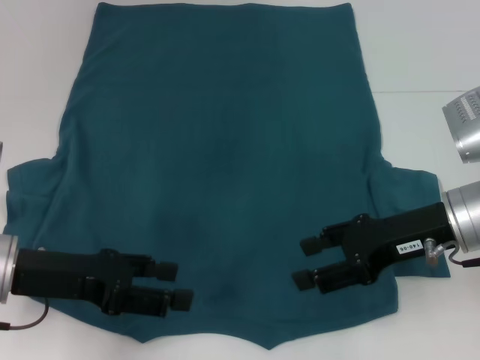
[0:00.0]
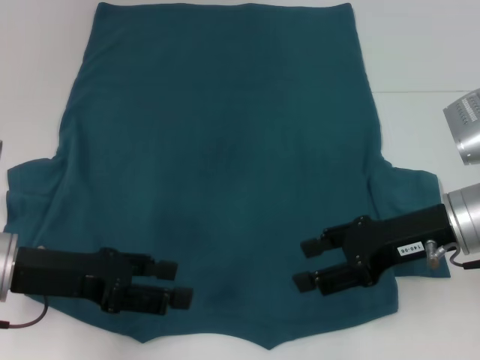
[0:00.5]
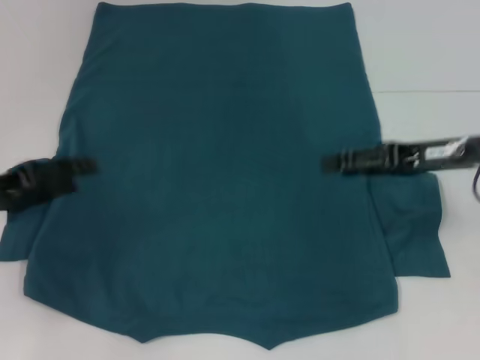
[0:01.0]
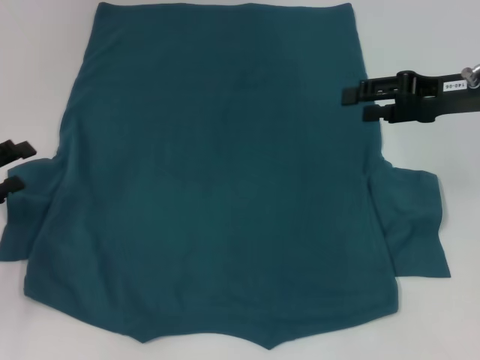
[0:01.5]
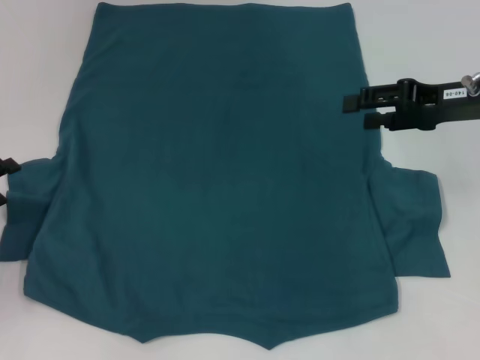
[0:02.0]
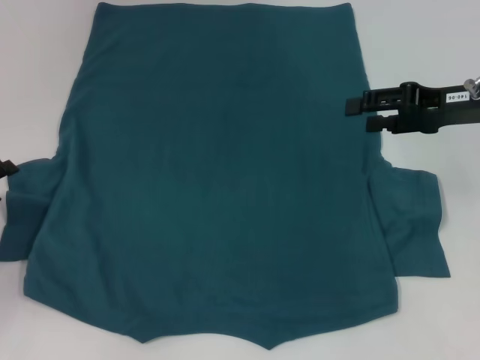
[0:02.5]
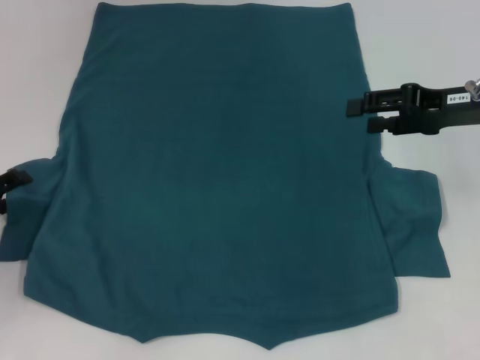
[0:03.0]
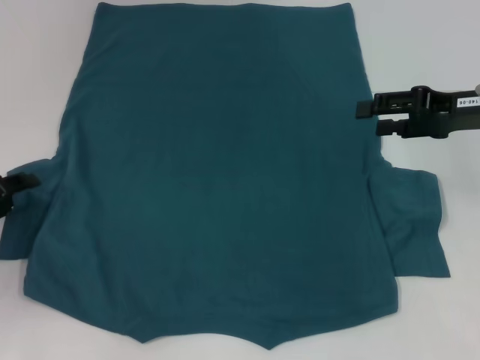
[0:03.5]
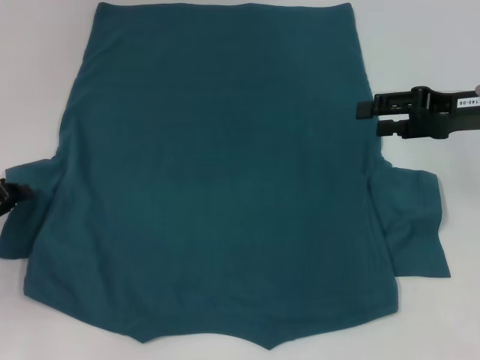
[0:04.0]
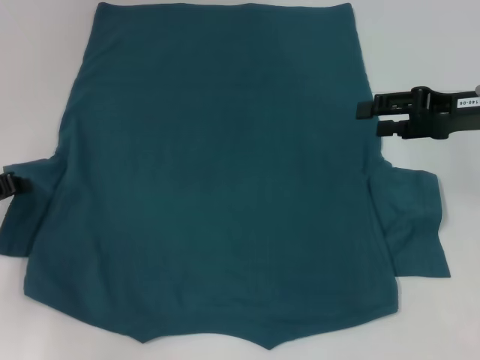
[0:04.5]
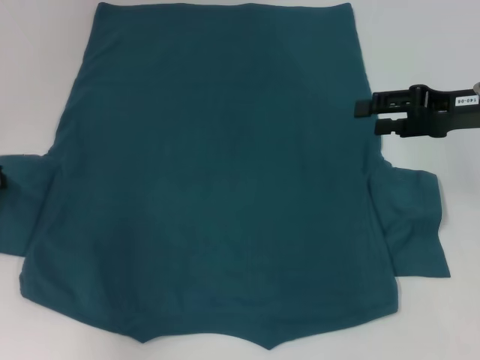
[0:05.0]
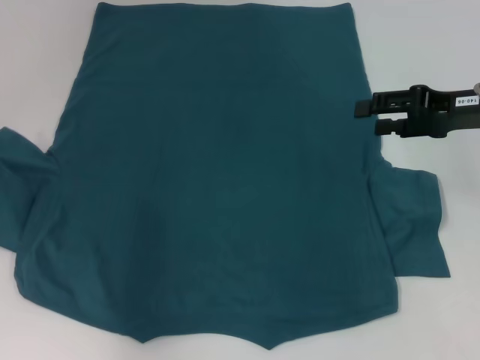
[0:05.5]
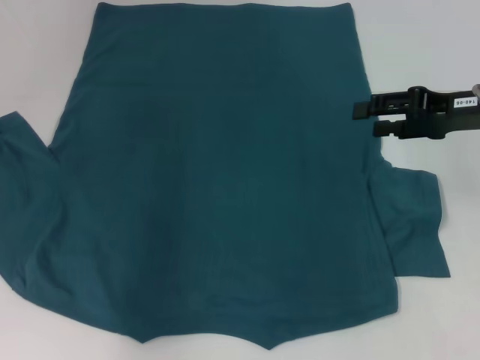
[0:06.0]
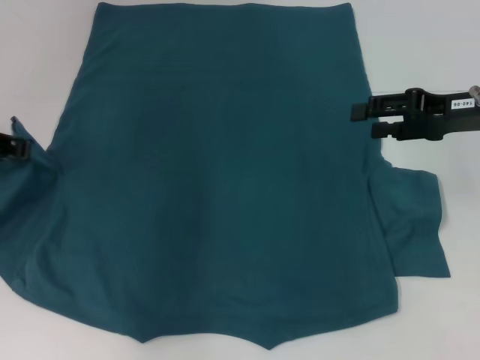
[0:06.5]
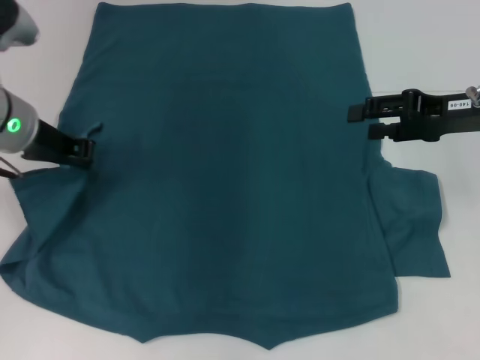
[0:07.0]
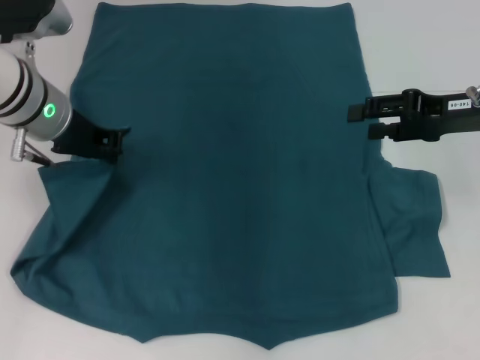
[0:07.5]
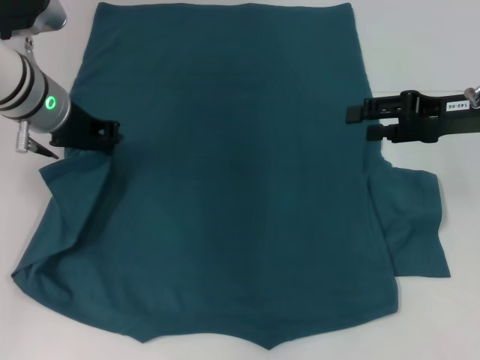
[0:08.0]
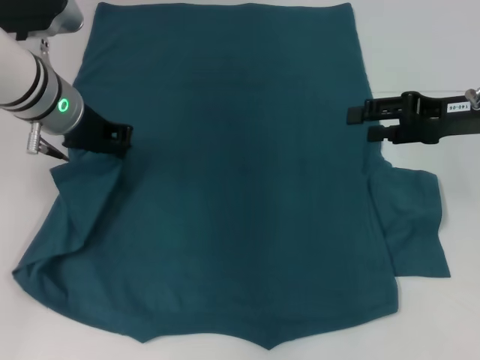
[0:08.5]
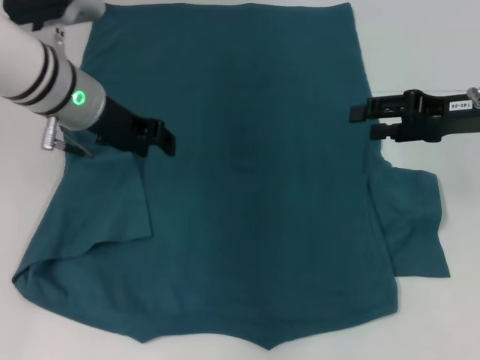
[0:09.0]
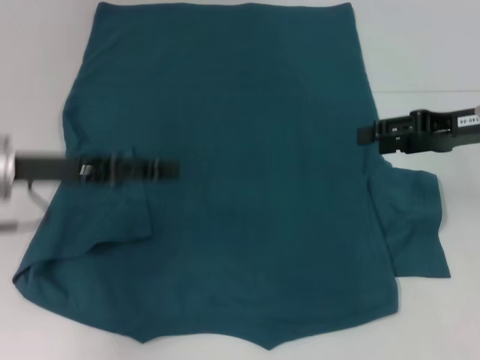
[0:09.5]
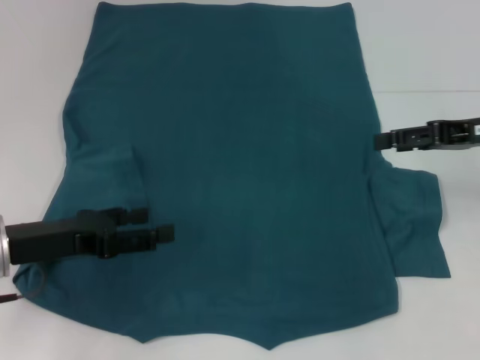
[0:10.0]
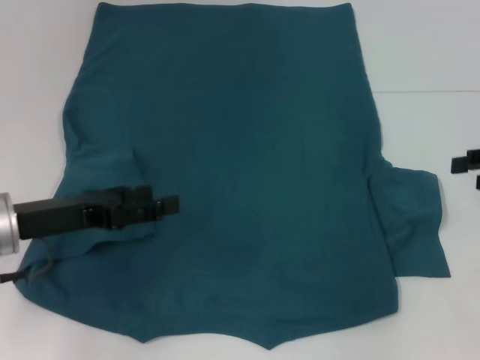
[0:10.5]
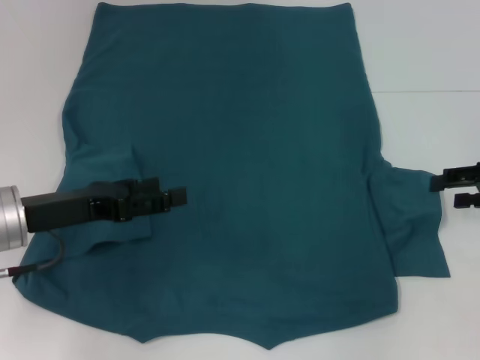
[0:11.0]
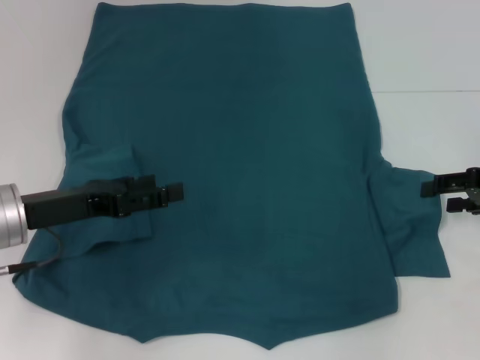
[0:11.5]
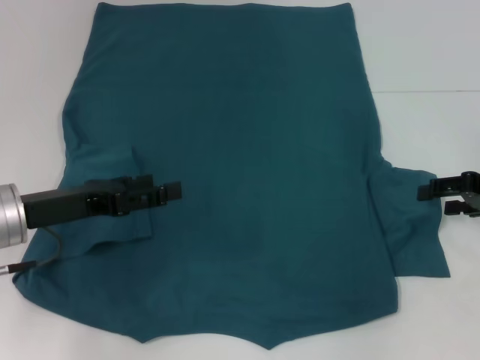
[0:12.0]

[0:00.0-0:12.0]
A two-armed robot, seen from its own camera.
Step, 0:00.0 to 0:08.5: Fold the bottom left sleeve with your left hand.
0:00.0 to 0:02.0: The left gripper travels to the left by about 10 cm; the right gripper goes about 10 cm forward, to the right and upward.
0:02.0 to 0:04.0: The left gripper closes up.
0:04.0 to 0:06.0: The left gripper is displaced upward and forward by approximately 15 cm.
0:06.0 to 0:08.0: The left gripper goes roughly 10 cm to the right.
0:08.0 to 0:10.0: The left gripper moves backward and downward, some 15 cm, and opens its fingers.
0:10.0 to 0:12.0: The right gripper goes roughly 5 cm downward.

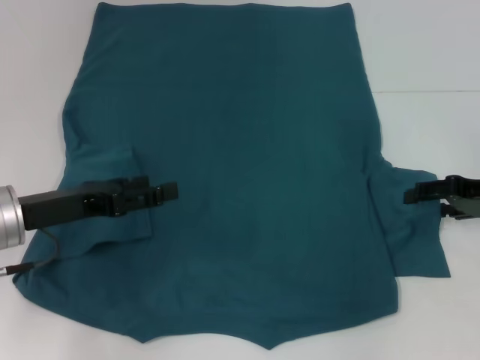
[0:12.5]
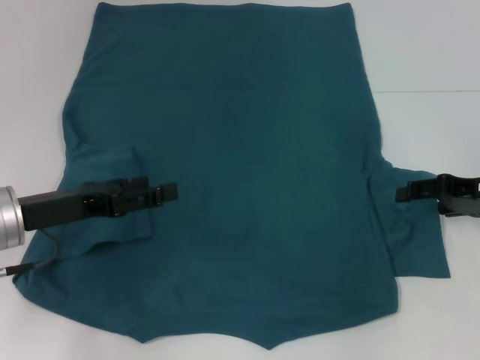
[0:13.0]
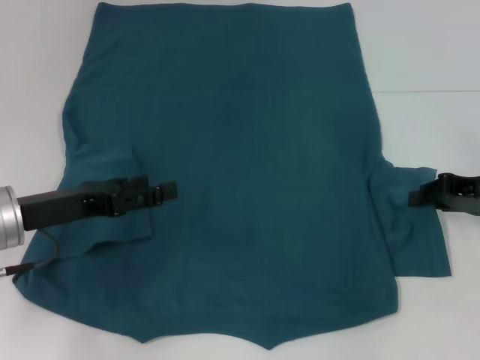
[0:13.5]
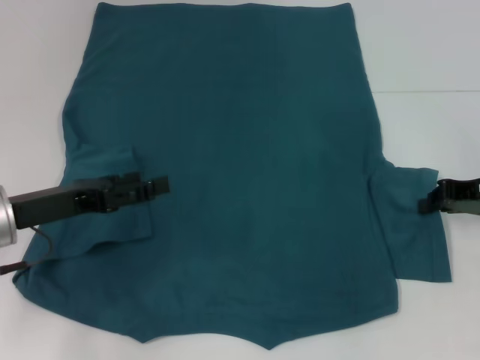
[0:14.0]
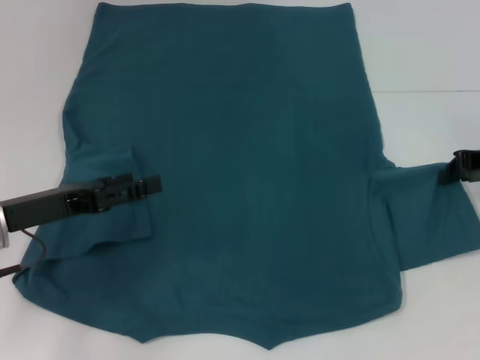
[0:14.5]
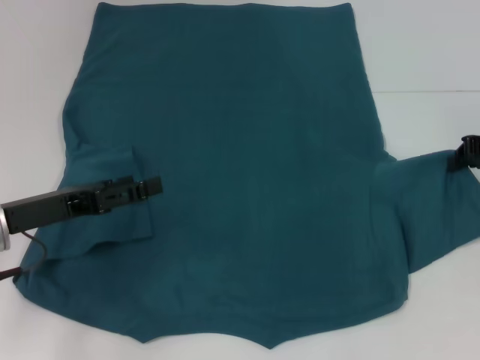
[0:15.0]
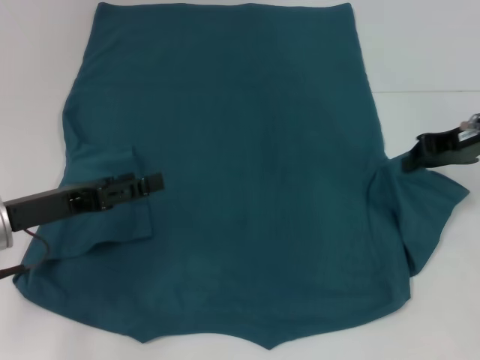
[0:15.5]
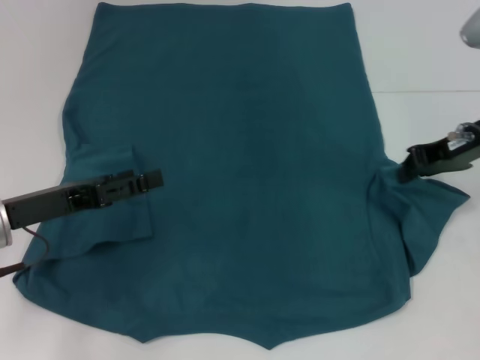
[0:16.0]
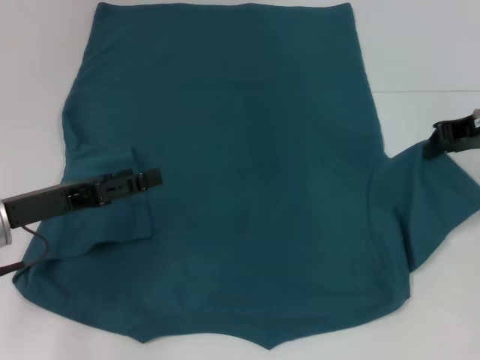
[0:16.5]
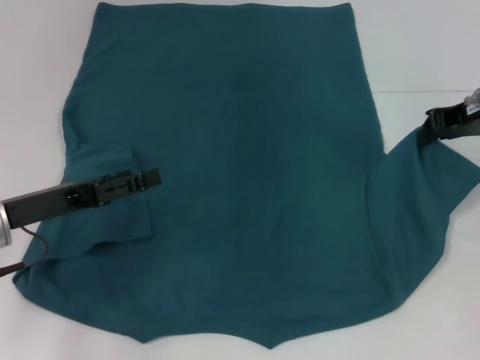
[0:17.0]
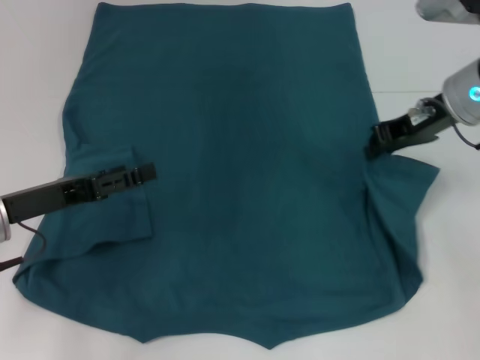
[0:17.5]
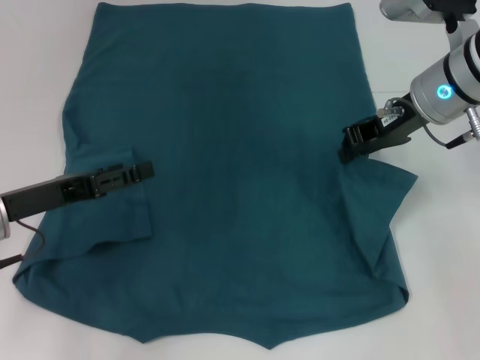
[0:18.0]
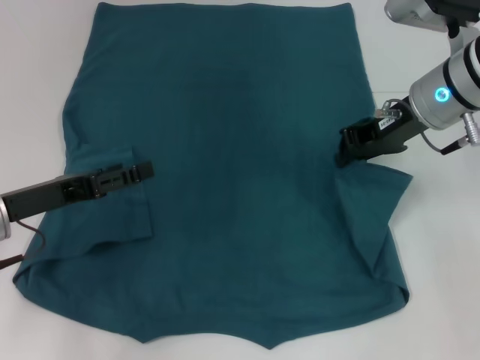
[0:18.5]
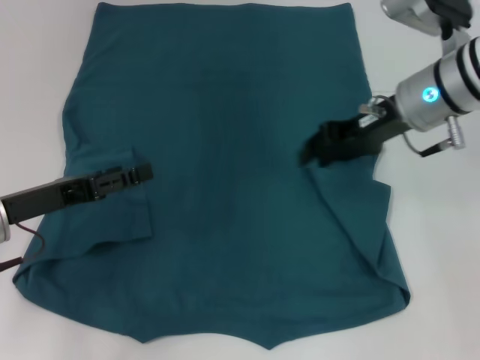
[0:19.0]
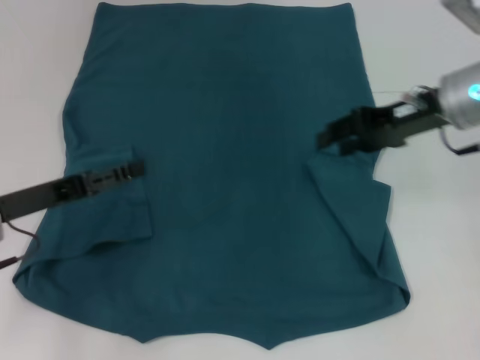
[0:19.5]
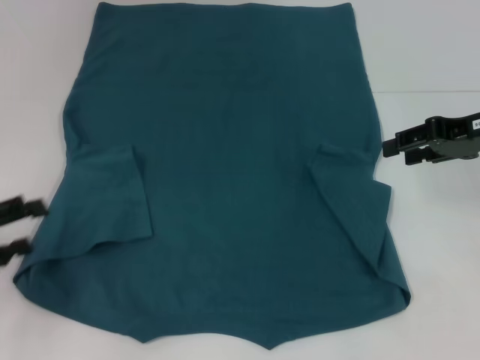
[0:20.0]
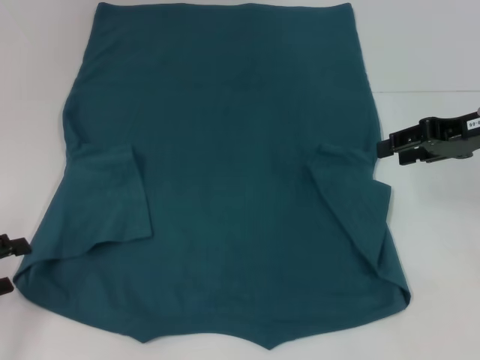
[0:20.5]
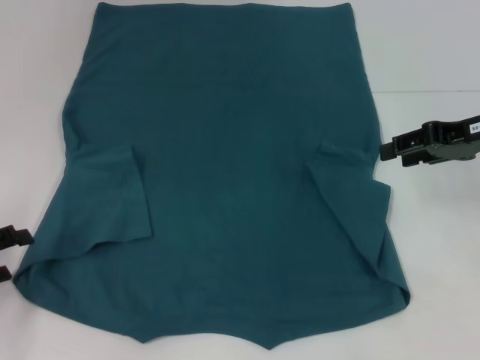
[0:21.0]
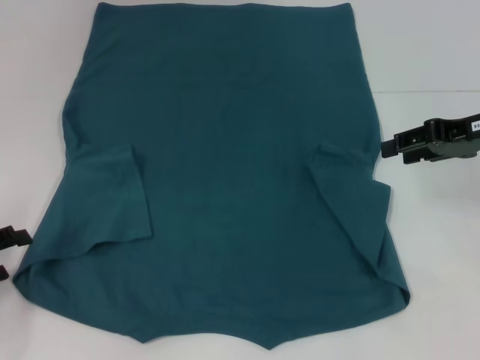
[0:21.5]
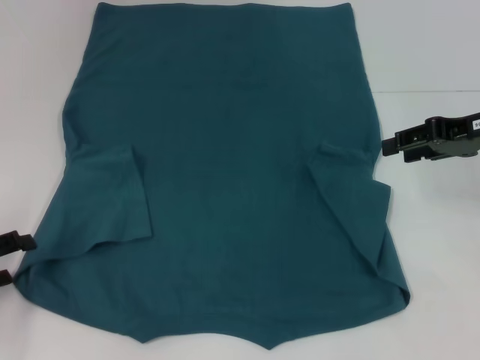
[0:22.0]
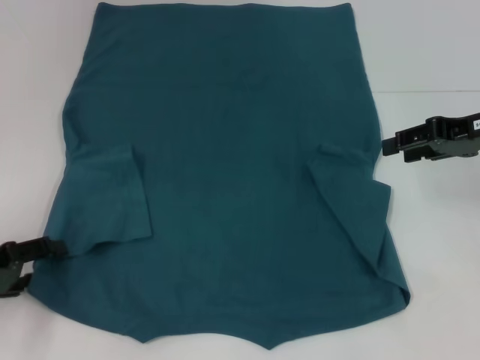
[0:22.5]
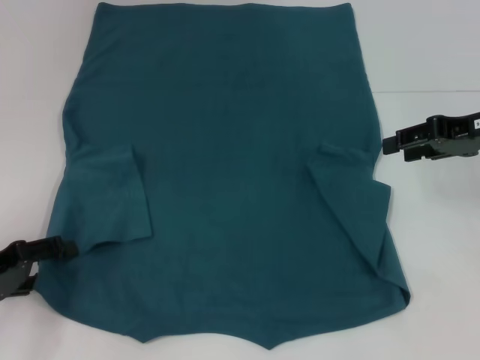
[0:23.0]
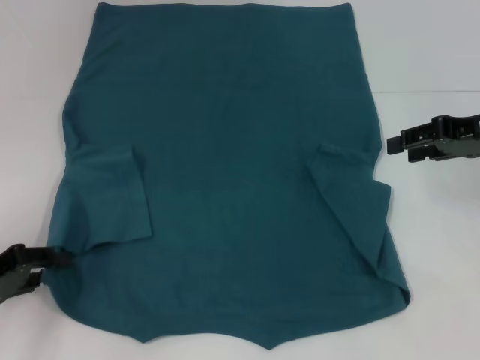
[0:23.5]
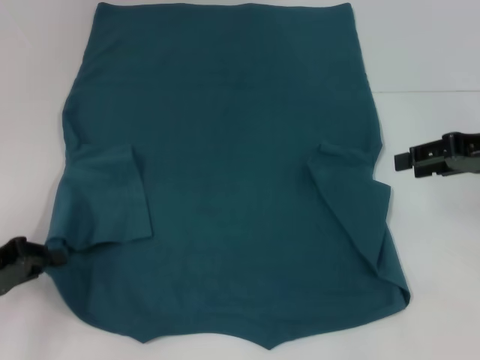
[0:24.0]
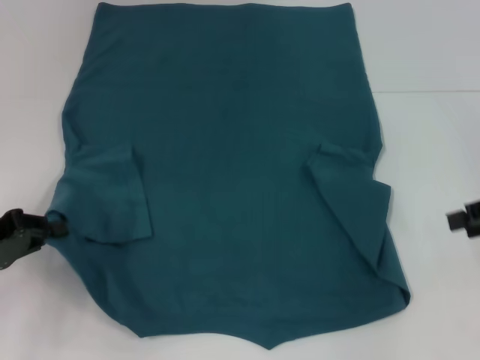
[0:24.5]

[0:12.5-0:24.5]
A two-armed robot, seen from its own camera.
Step, 0:12.5 to 0:19.0: Fold the bottom right sleeve to the right.
Step, 0:19.5 to 0:24.0: Grab the bottom left corner with your left hand.
0:12.5 to 0:14.5: The right gripper closes its fingers.
0:14.5 to 0:16.5: The right gripper shifts by some 5 cm.
0:16.5 to 0:18.5: The right gripper goes roughly 10 cm to the left.
0:18.5 to 0:20.5: The left gripper shifts about 15 cm to the left and backward, while the right gripper travels to the right by approximately 10 cm, and opens.
0:20.5 to 0:22.5: There are only small adjustments of the grippers.
0:22.5 to 0:24.5: The right gripper travels to the right and backward by roughly 10 cm; the left gripper closes.

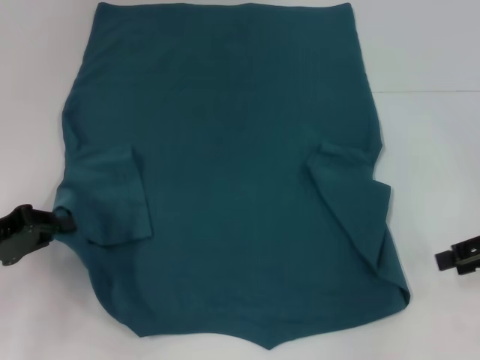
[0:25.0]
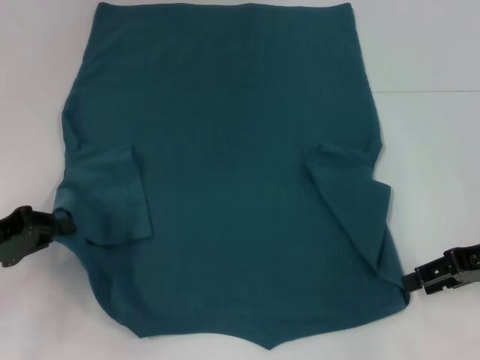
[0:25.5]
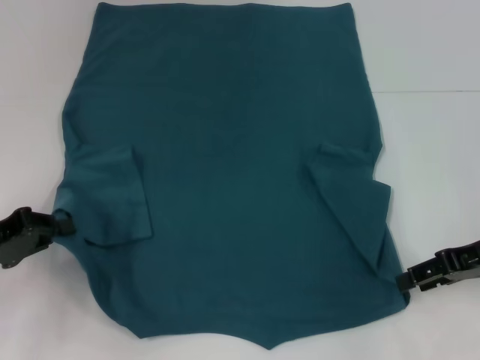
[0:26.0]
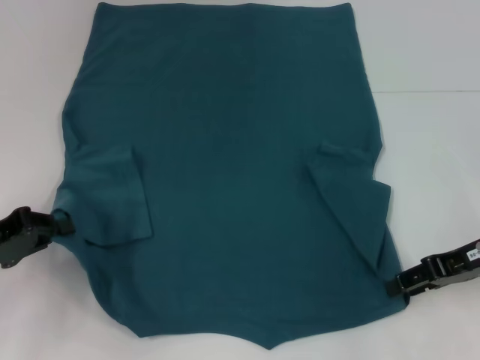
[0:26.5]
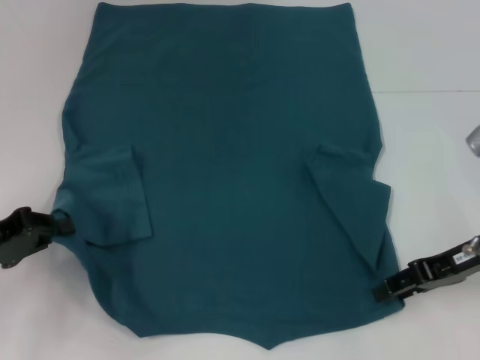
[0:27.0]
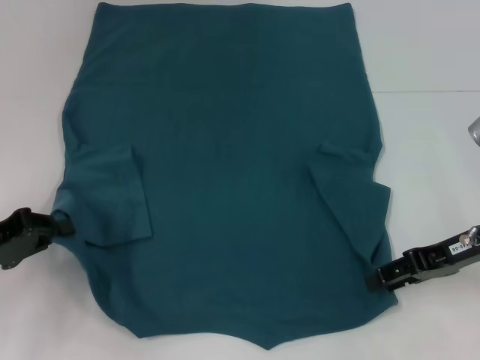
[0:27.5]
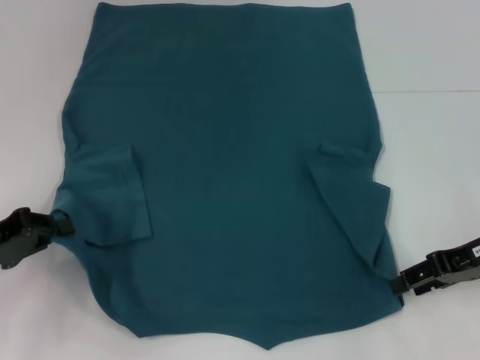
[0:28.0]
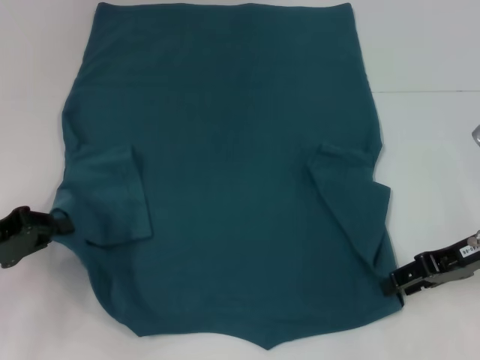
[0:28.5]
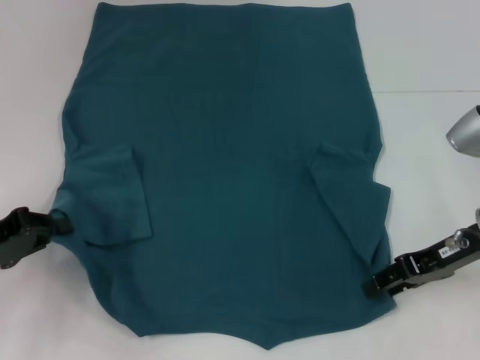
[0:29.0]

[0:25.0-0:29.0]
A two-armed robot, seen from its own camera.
0:25.0 to 0:27.0: The right gripper moves to the left, about 5 cm.
0:27.0 to 0:29.0: The grippers move only a little.
